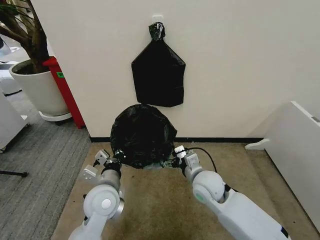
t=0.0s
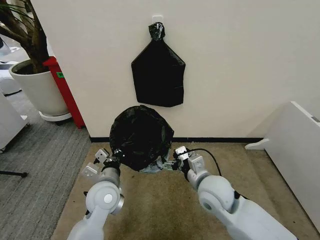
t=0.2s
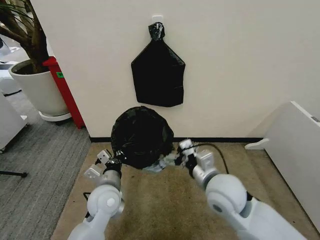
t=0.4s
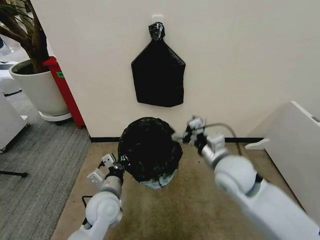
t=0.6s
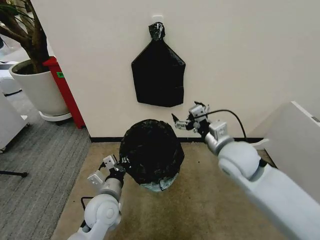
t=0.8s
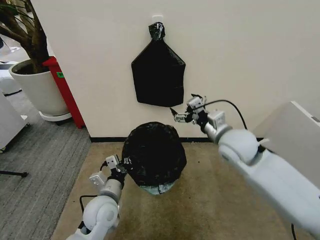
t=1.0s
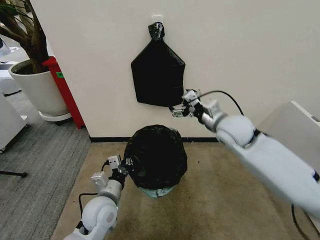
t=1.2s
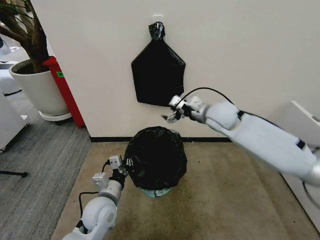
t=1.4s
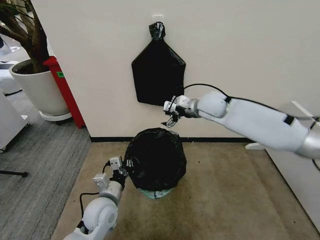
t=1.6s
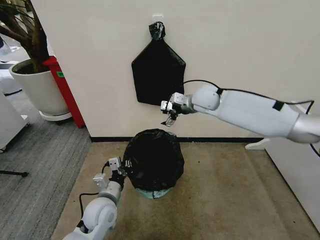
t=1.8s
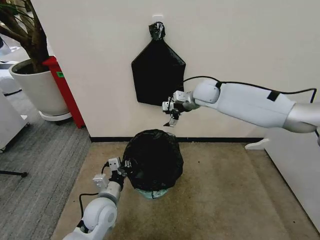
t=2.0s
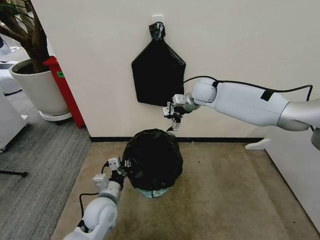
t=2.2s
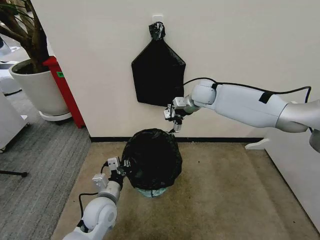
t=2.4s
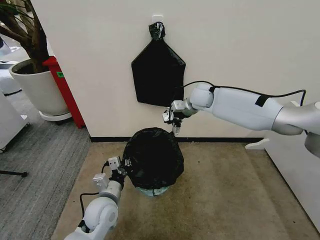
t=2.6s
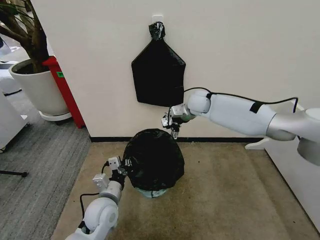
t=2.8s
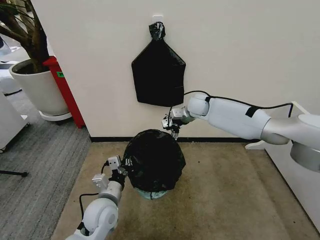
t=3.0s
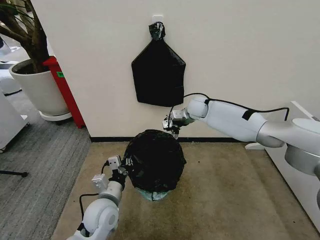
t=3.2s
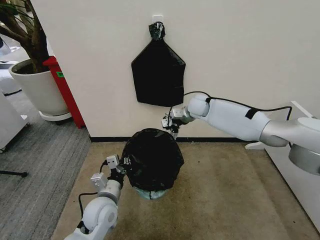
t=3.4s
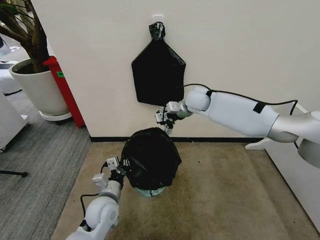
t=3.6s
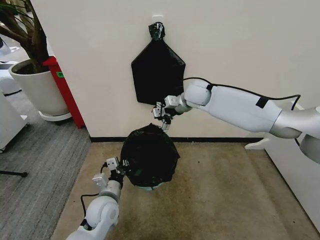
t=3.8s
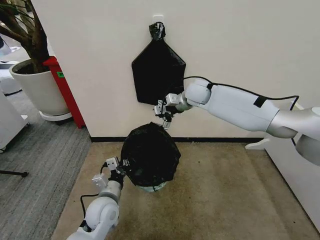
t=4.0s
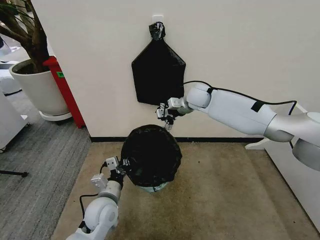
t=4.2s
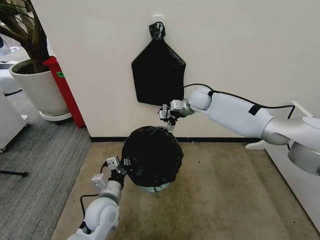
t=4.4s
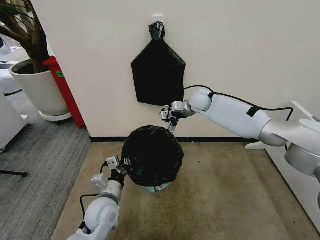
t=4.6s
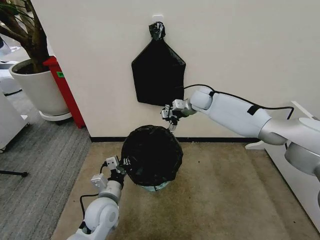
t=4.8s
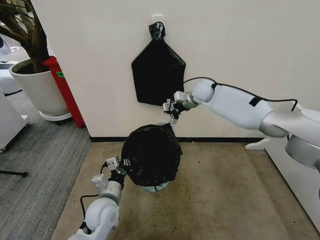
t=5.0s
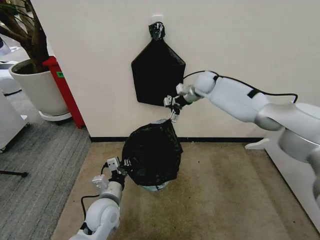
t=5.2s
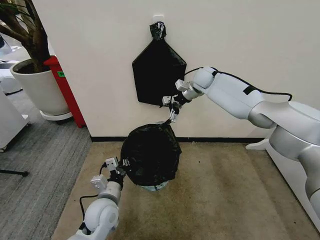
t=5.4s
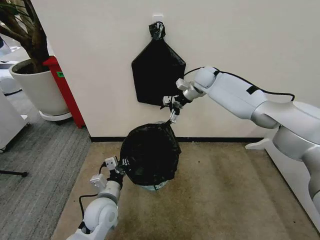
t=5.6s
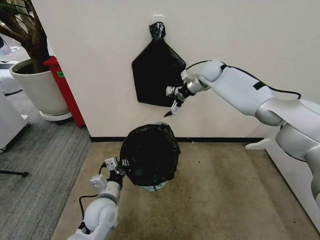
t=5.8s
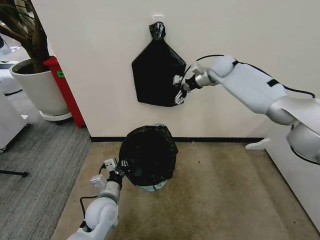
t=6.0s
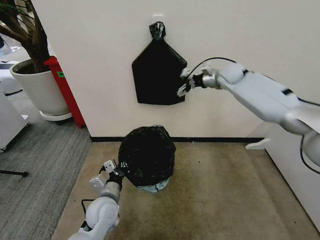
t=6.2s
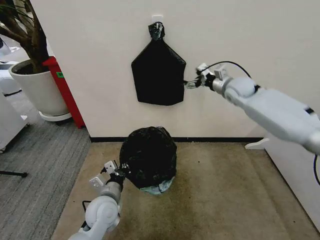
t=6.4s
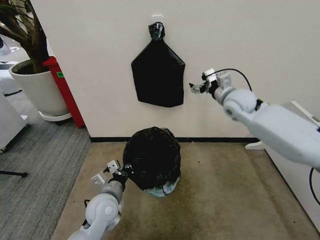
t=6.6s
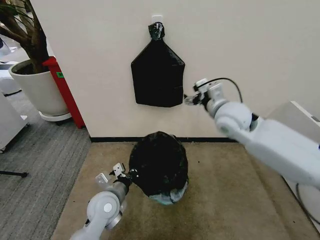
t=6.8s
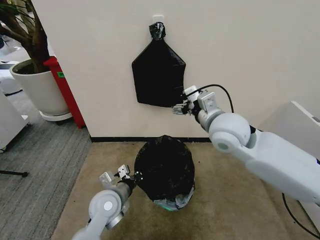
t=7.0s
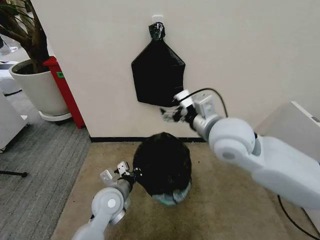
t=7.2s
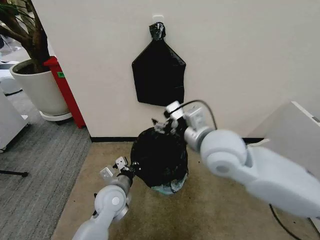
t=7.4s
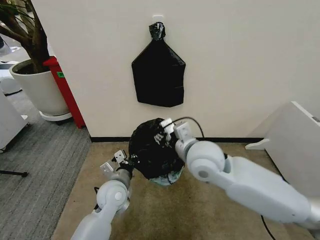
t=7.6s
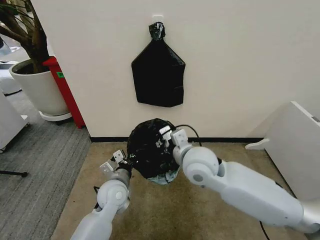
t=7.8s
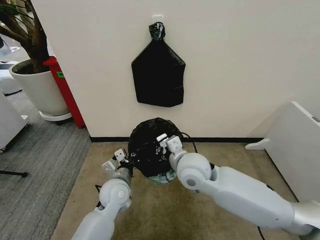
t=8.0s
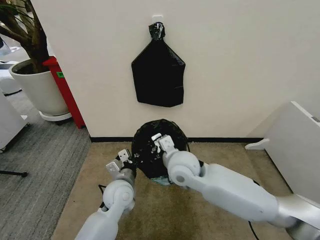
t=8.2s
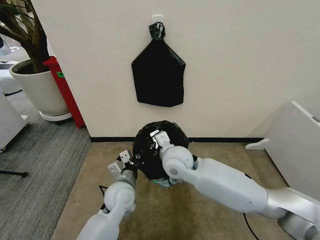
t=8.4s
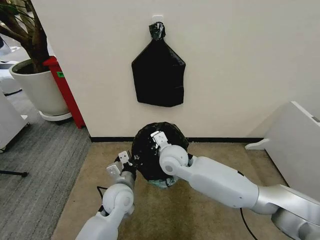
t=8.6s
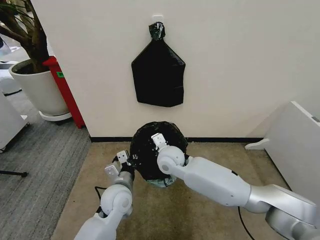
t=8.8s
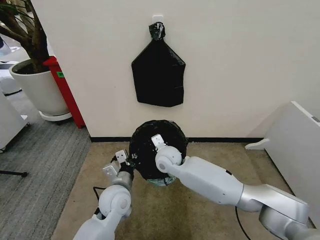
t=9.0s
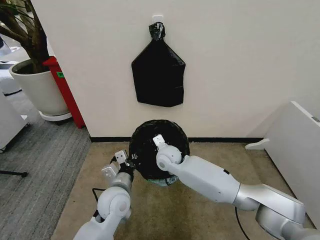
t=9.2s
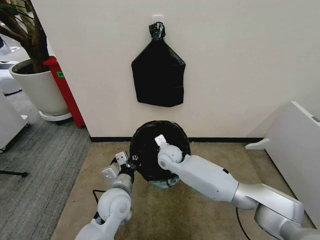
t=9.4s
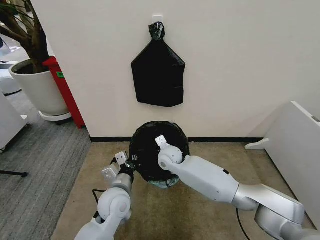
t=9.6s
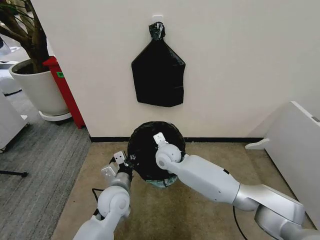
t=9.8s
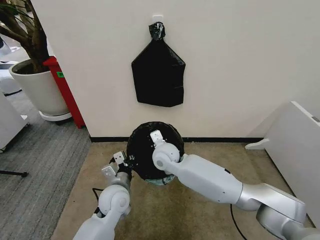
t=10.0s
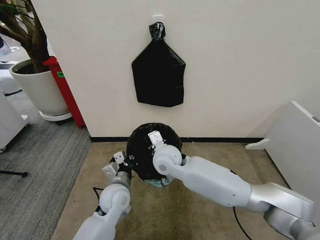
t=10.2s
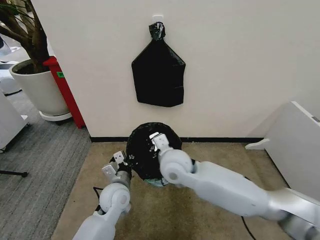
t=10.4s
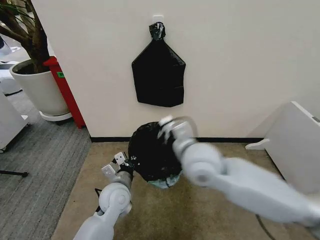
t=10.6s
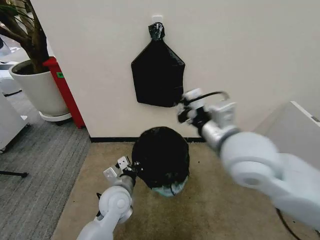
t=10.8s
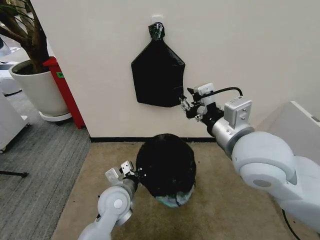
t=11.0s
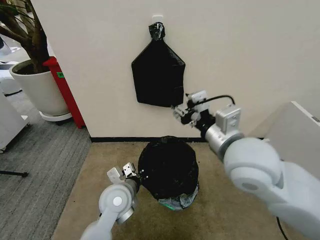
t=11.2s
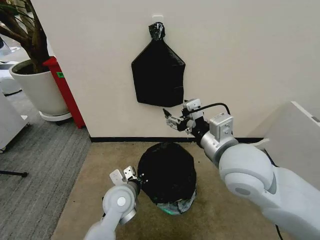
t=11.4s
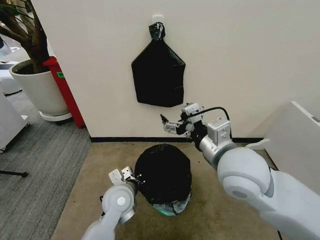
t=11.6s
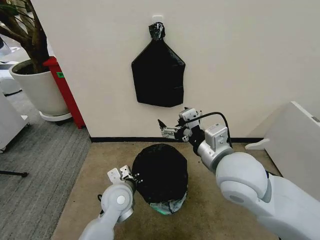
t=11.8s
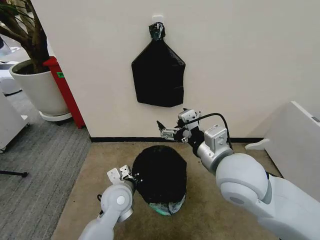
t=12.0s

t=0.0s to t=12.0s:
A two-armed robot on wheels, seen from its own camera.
Task of the whole recording: Place the garbage bag over the trash bin.
t=0.0s to t=1.6s: The left gripper goes approximately 5 cm downward. The right gripper moves forward and upward, about 25 cm.
t=1.6s to t=3.0s: The right gripper moves forward and downward, some 10 cm.
t=3.0s to t=4.4s: The right gripper reaches roughly 5 cm upward, then returns.
t=4.4s to t=6.0s: The right gripper is displaced upward, to the right and forward by approximately 15 cm.
t=6.0s to t=7.6s: The right gripper heads backward, covering approximately 35 cm, and closes, while the left gripper ends up approximately 5 cm from where it was.
t=7.6s to t=9.0s: The right gripper goes about 20 cm downward, forward and to the left, and closes up.
t=9.0s to t=10.4s: The right gripper moves upward and backward, some 10 cm.
t=10.4s to t=12.0s: The right gripper is displaced to the right, upward and backward by roughly 20 cm, and opens up.

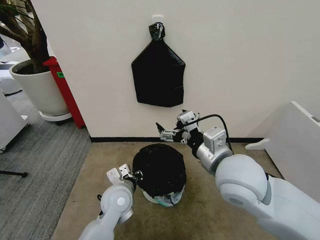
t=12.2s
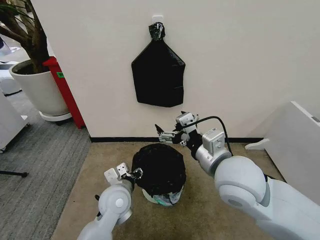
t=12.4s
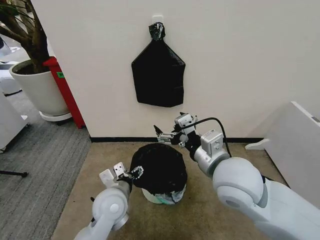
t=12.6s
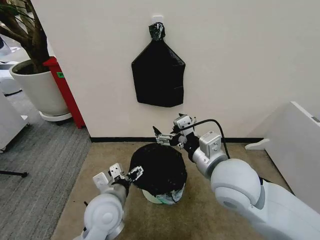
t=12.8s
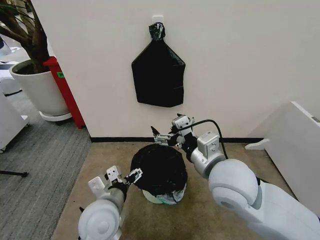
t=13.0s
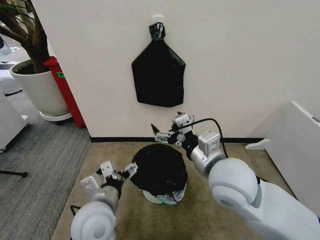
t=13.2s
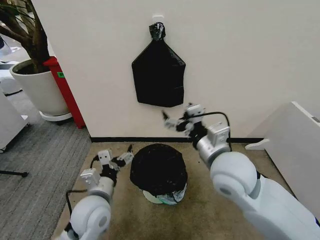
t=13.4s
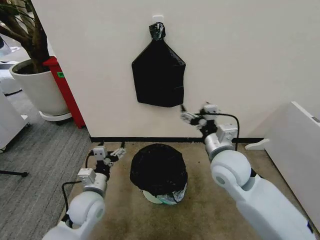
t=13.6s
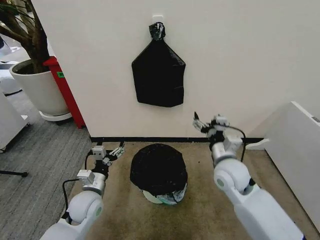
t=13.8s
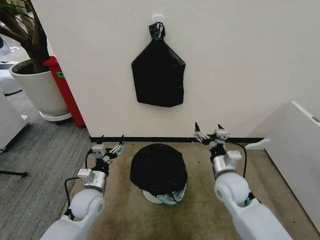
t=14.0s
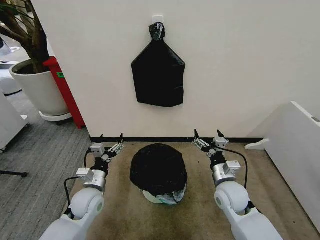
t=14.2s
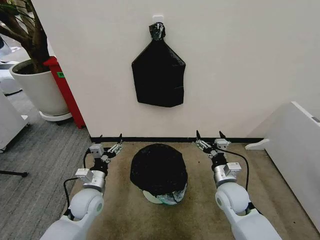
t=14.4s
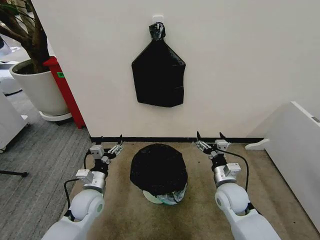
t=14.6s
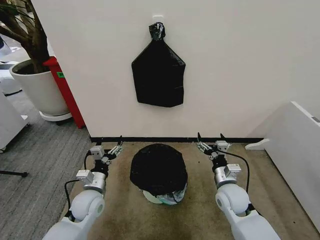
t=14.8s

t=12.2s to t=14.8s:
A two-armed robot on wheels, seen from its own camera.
Task of the whole recording: Place the garbage bag over the trash bin.
t=12.2s to t=13.4s: The left gripper moves to the left, roughly 5 cm, and opens its fingers.
t=13.4s to t=14.8s: The left gripper is displaced downward, to the left and forward by roughly 10 cm, while the right gripper heads downward, covering approximately 20 cm.
